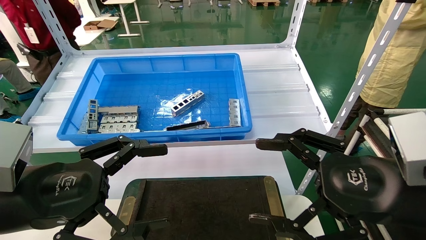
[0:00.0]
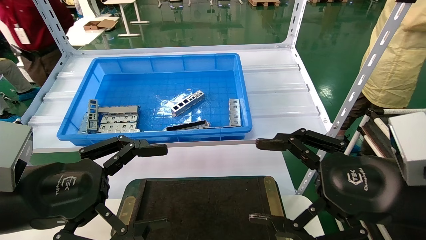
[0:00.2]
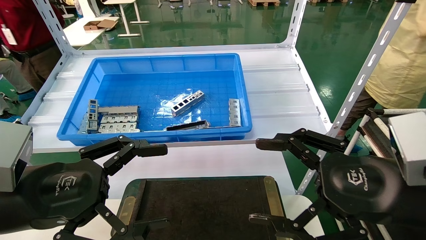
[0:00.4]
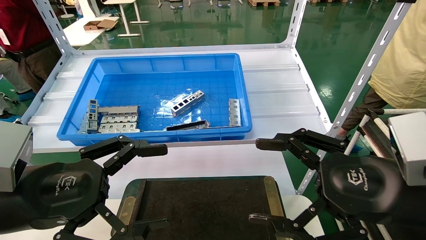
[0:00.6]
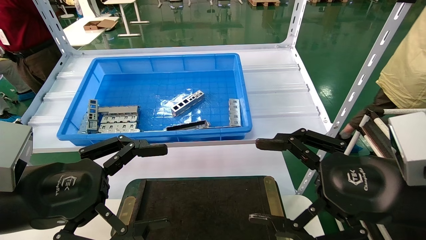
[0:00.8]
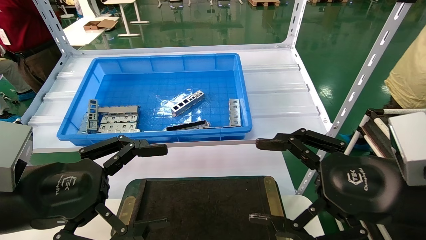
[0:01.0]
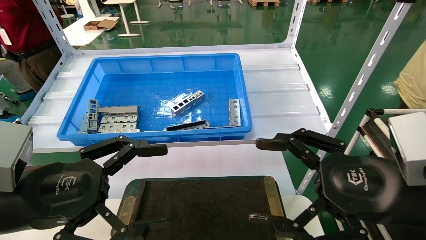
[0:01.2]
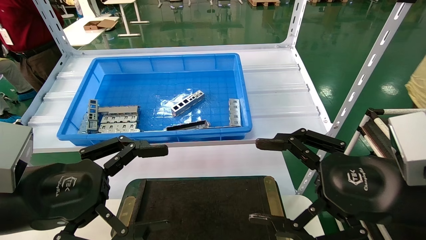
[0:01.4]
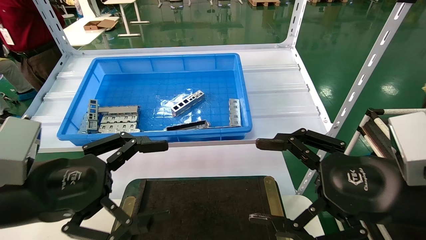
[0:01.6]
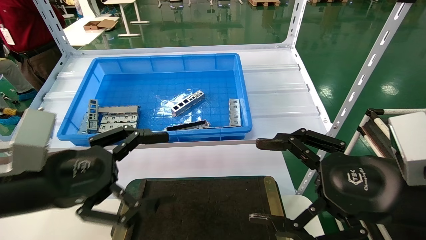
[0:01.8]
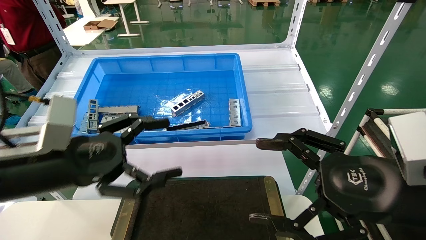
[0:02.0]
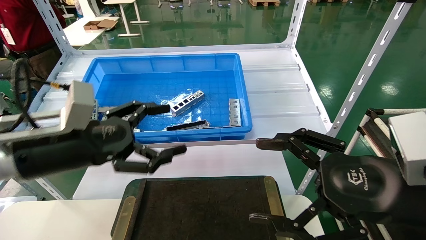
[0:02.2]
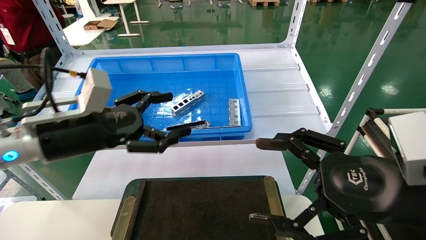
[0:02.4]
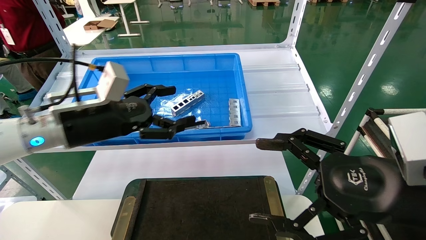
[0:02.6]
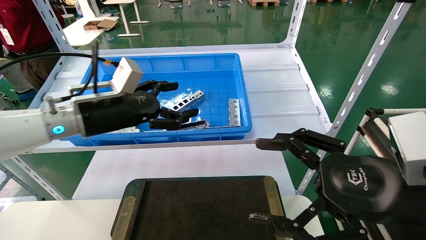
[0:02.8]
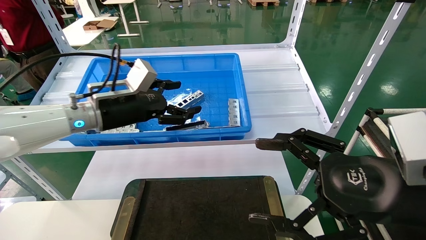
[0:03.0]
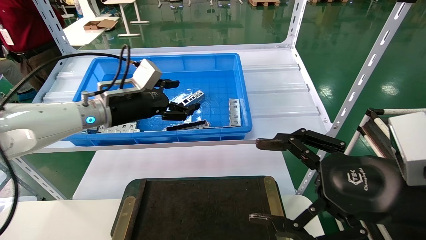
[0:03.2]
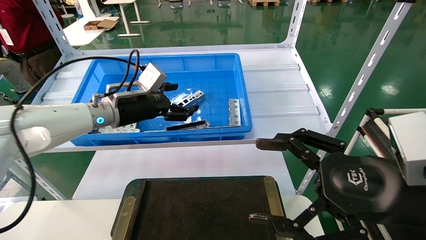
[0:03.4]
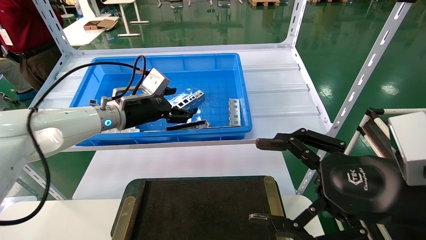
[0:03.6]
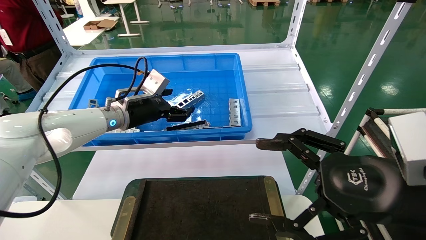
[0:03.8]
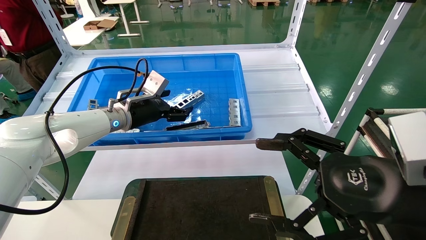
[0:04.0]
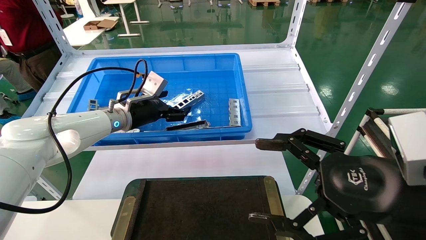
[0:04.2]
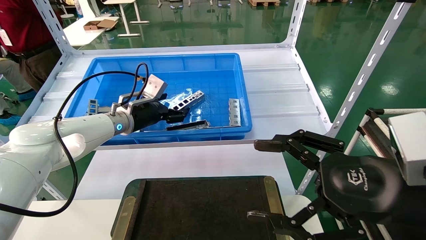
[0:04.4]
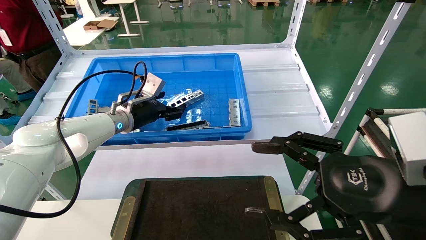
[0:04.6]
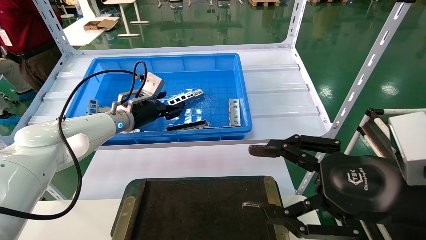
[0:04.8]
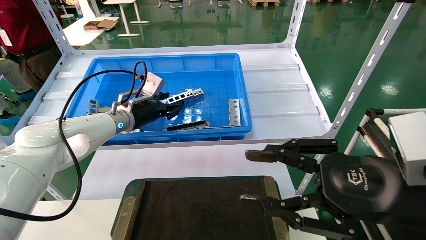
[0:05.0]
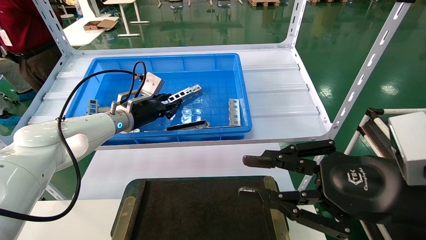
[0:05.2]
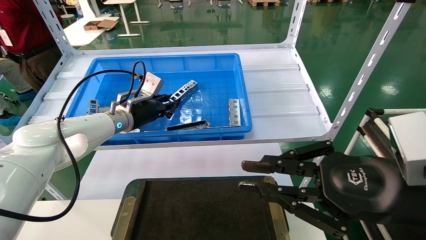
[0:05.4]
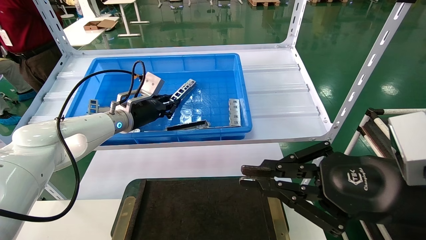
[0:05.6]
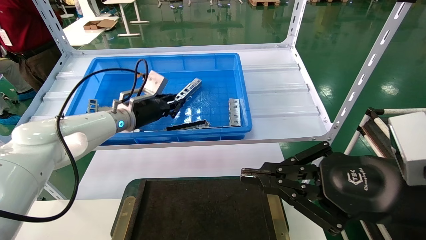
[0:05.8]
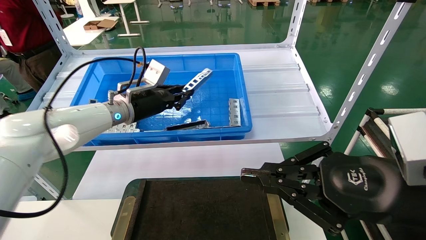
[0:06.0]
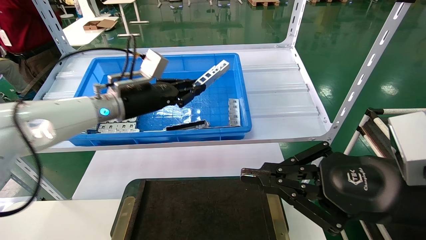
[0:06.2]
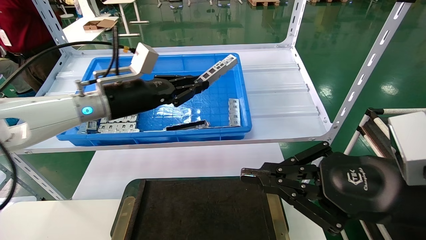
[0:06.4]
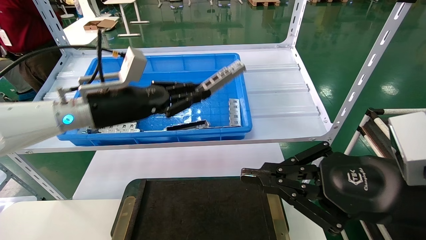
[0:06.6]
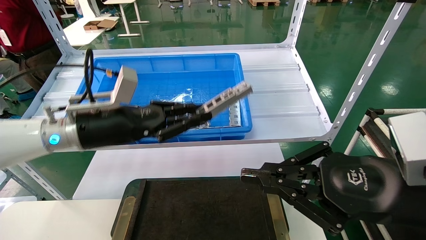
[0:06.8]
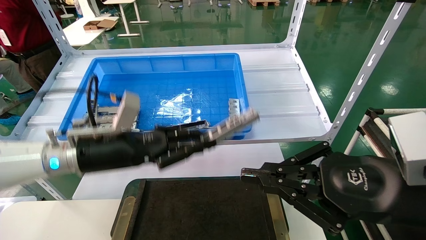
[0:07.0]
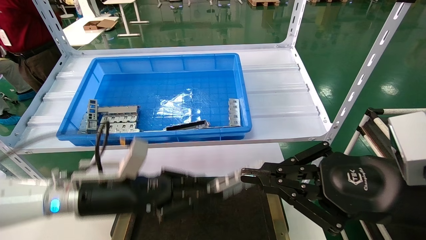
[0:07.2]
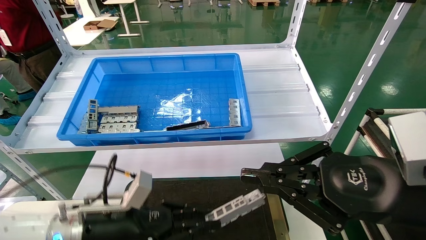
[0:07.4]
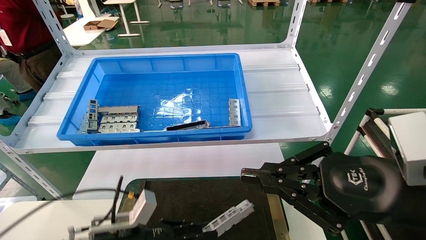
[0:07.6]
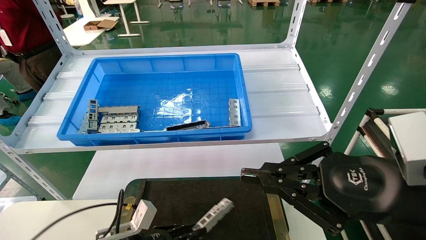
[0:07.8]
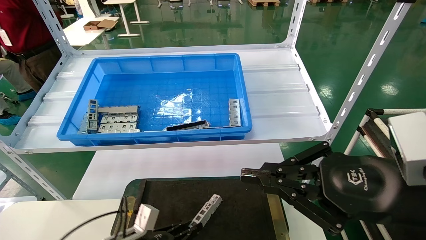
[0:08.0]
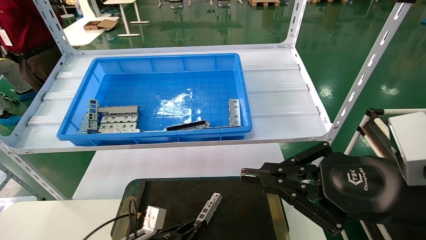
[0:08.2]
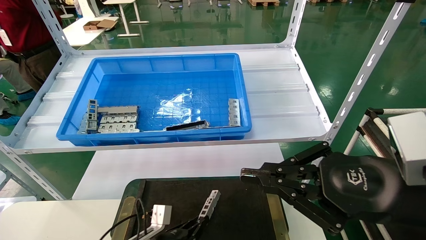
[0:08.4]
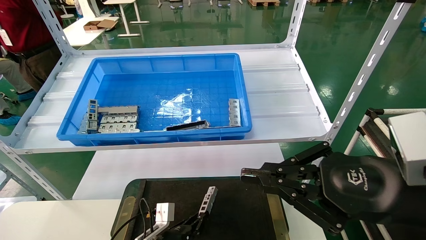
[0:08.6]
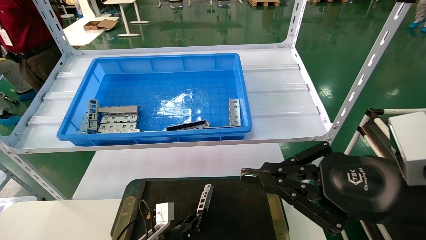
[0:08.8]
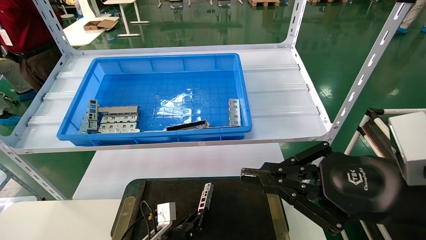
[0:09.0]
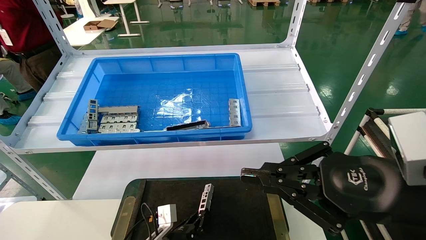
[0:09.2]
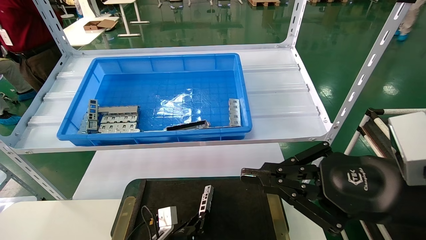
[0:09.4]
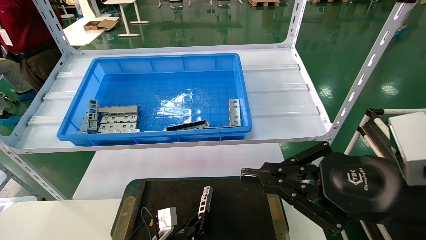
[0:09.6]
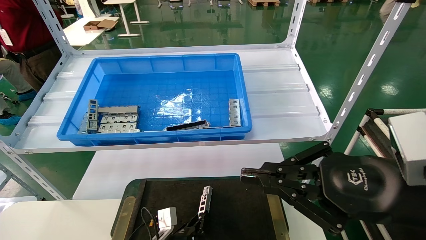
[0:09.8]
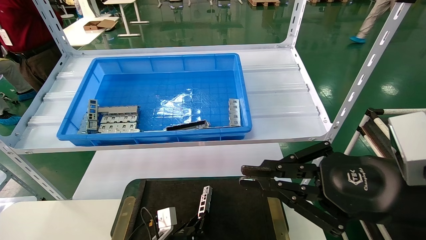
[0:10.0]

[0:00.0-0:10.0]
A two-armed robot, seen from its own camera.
Task of the whole recording: Grasp the part with one hand and place it on the black container.
Step, 0:01.8 to 0:06.0: Pick up the front USB bracket from the feeding area.
0:00.0 to 0:01.4: Both grippers stay about where they are.
0:01.4 to 0:02.8: The left gripper goes some 20 cm forward.
0:02.8 to 0:04.2: The left gripper moves forward, about 10 cm.
0:04.2 to 0:05.8: The right gripper closes up, while the left gripper closes its fingers.
0:05.8 to 0:07.2: The left gripper is displaced backward and downward by about 20 cm.
0:07.2 to 0:08.6: The left gripper shifts roughly 25 cm downward.
0:08.6 to 0:10.0: There are only small adjustments of the grippers.

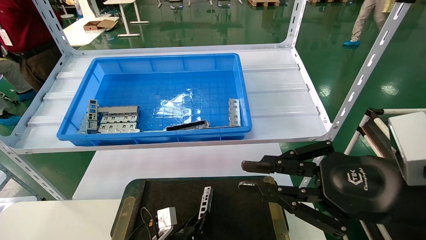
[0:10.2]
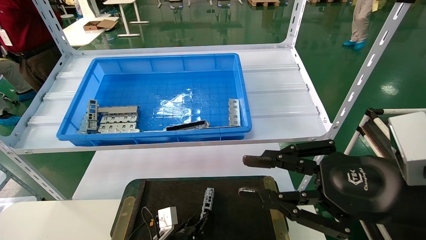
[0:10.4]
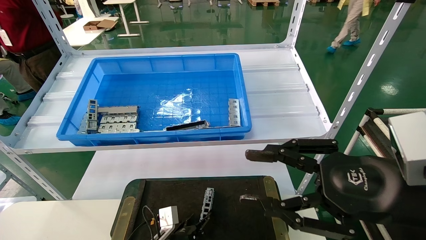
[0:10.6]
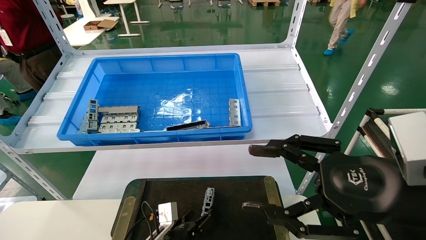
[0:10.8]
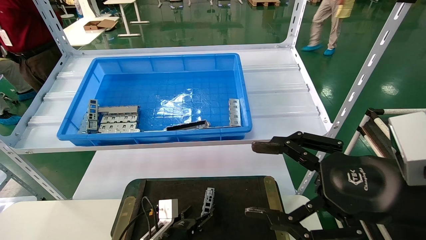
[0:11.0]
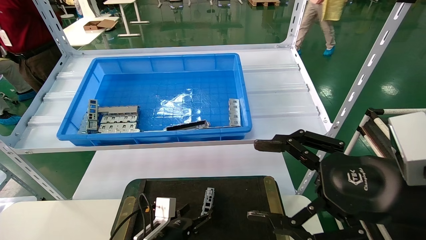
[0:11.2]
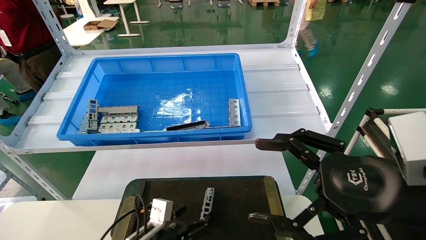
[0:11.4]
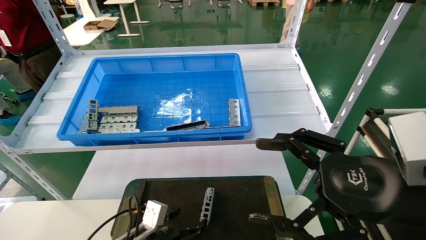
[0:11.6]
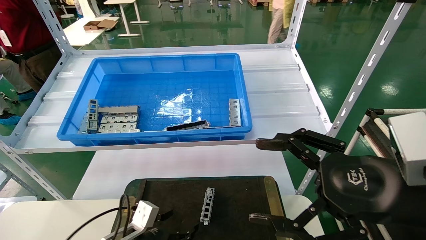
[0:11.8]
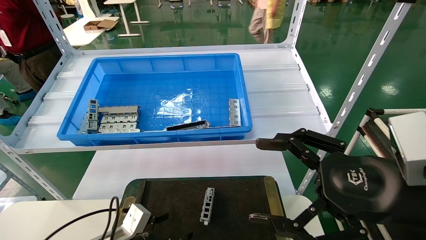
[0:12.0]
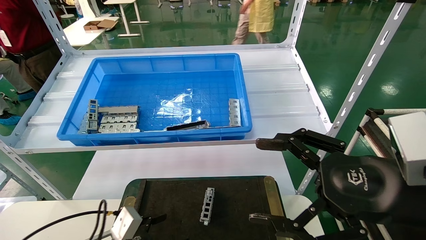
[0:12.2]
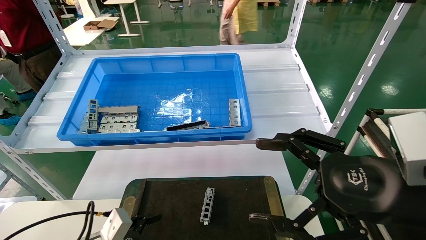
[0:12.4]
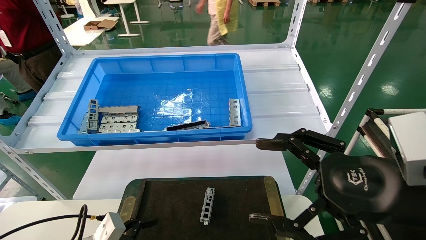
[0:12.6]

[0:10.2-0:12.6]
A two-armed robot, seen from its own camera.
Task of the whole recording: Grasp the part with one hand and place it on the black container.
0:10.2 to 0:11.4: The right gripper opens; the left gripper shifts some 5 cm upward, and opens up.
0:11.4 to 0:12.6: The left gripper shifts approximately 15 cm to the left, backward and upward.
